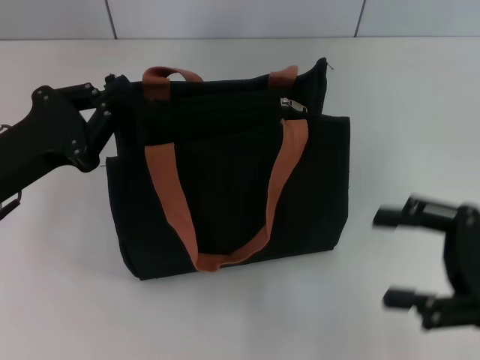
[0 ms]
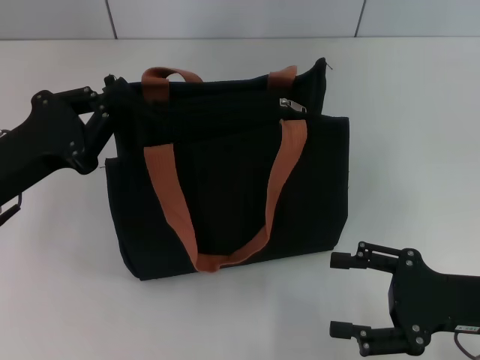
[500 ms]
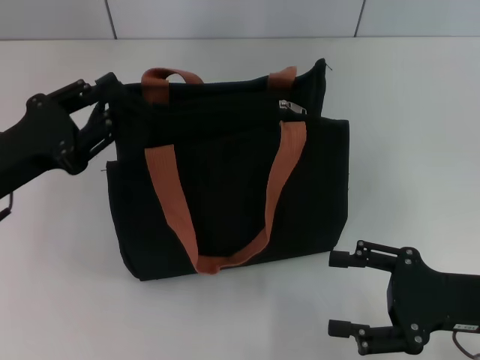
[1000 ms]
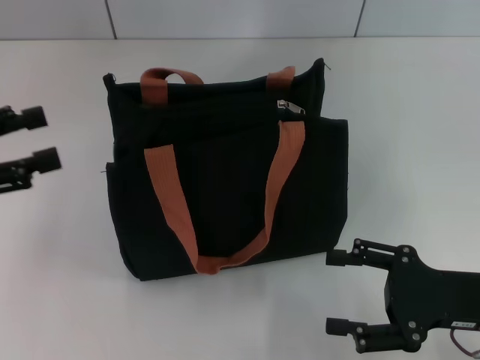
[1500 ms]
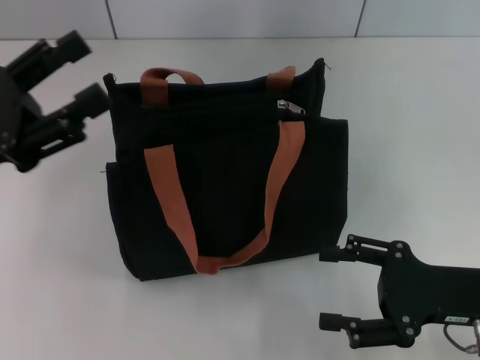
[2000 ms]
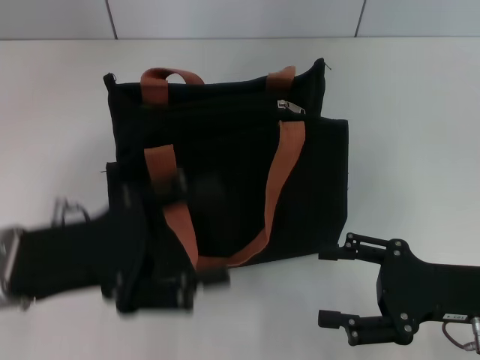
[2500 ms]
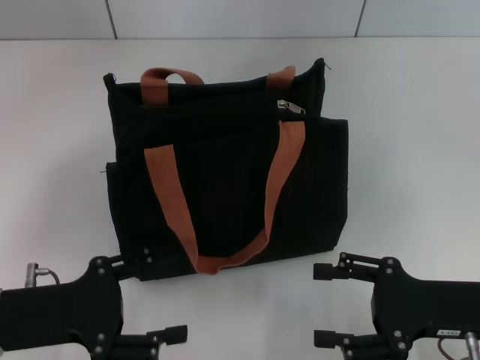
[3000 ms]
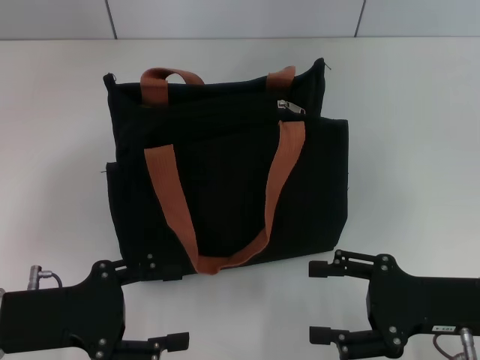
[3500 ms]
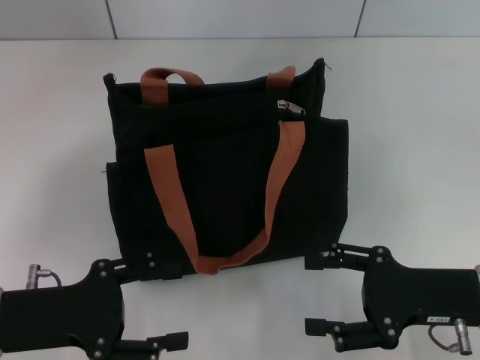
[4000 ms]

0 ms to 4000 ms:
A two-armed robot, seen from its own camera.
0 ms to 2000 ms: The right gripper shifts by about 5 cm, while the left gripper reaches some 10 cm to the left, then returns, and opens.
2000 ms to 4000 ms: The left gripper goes about 10 cm downward and backward.
